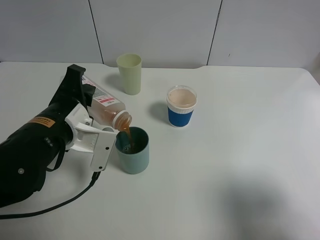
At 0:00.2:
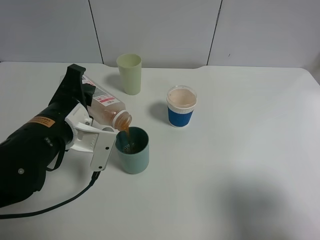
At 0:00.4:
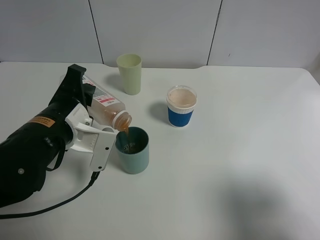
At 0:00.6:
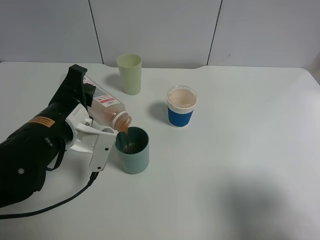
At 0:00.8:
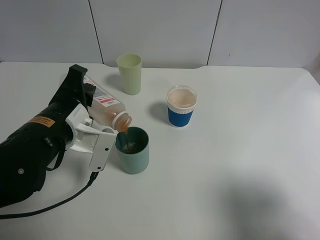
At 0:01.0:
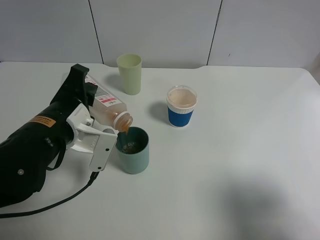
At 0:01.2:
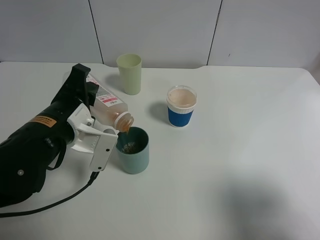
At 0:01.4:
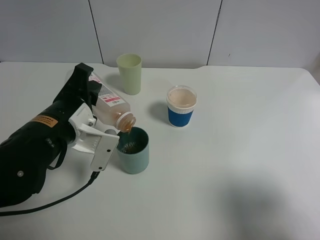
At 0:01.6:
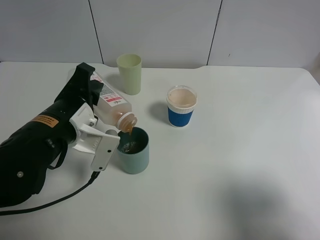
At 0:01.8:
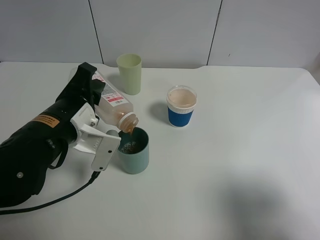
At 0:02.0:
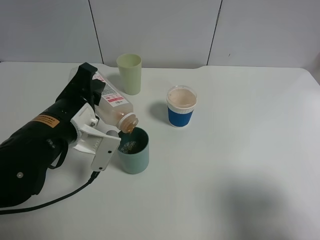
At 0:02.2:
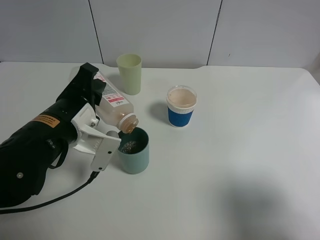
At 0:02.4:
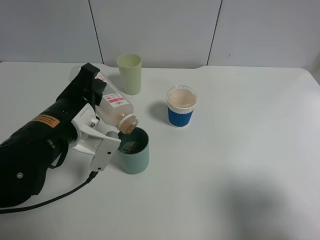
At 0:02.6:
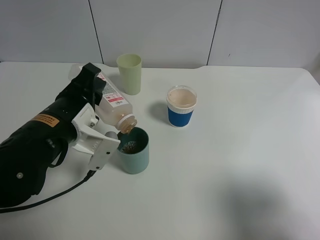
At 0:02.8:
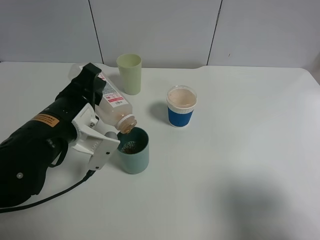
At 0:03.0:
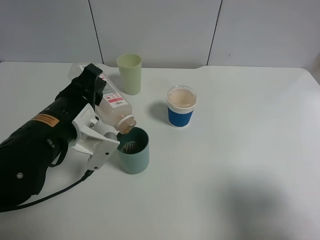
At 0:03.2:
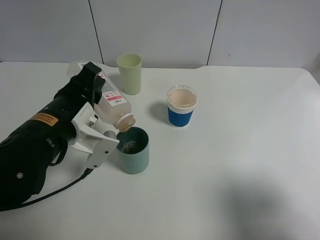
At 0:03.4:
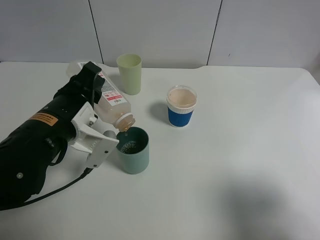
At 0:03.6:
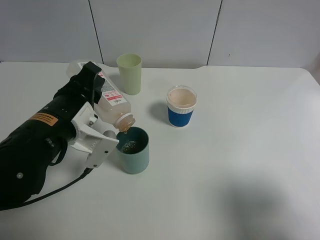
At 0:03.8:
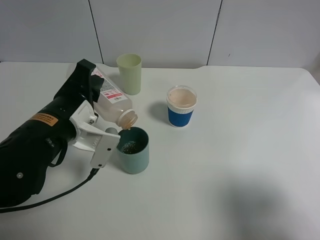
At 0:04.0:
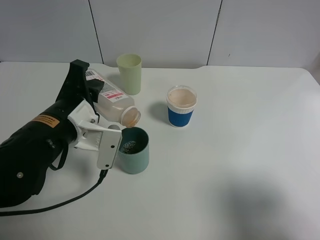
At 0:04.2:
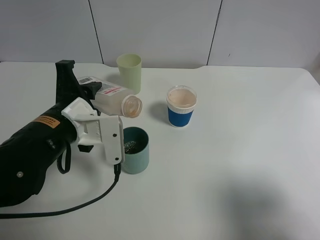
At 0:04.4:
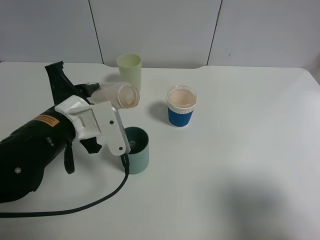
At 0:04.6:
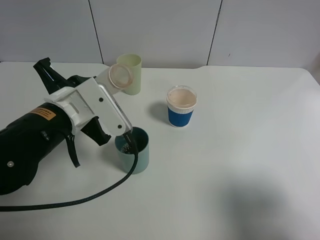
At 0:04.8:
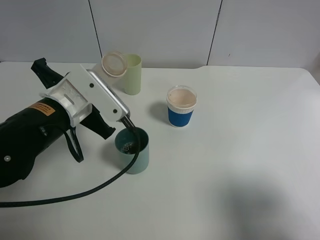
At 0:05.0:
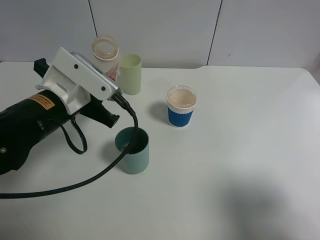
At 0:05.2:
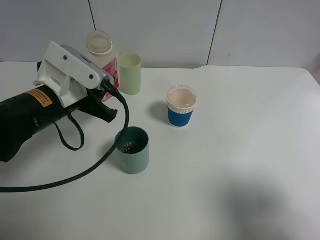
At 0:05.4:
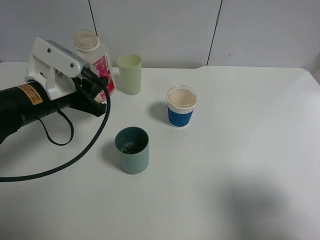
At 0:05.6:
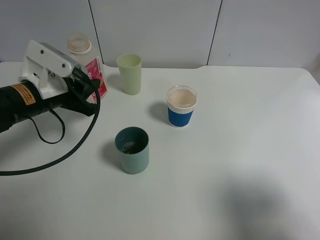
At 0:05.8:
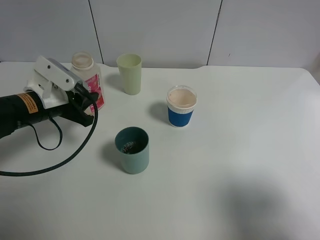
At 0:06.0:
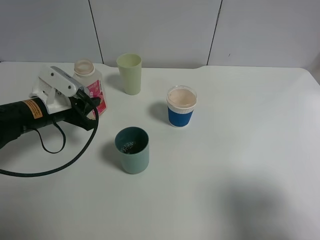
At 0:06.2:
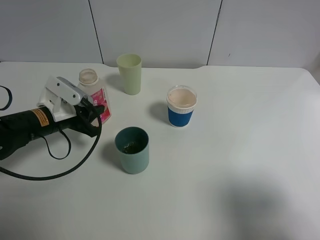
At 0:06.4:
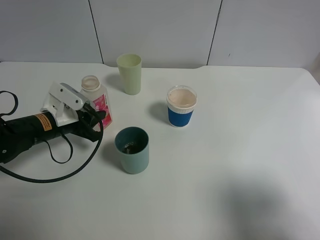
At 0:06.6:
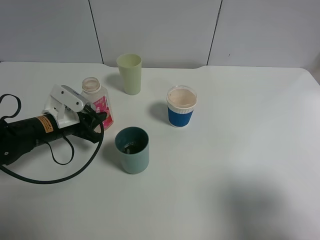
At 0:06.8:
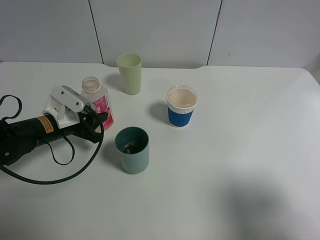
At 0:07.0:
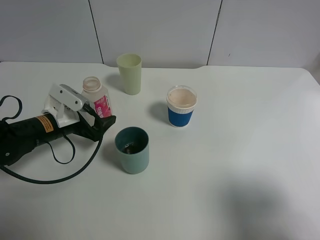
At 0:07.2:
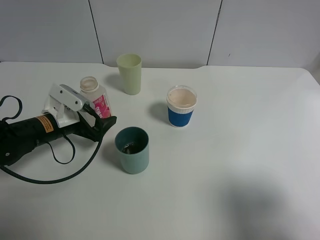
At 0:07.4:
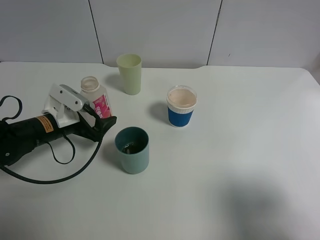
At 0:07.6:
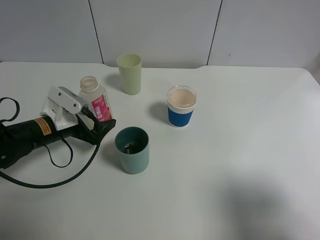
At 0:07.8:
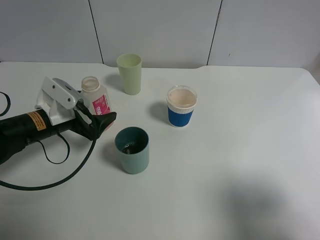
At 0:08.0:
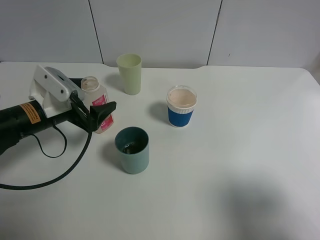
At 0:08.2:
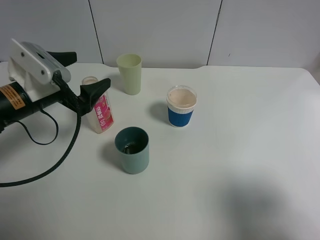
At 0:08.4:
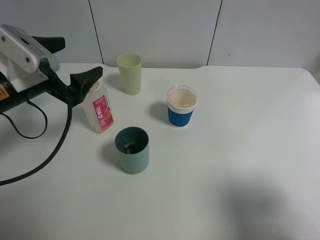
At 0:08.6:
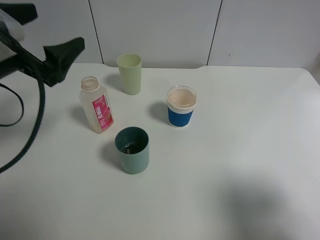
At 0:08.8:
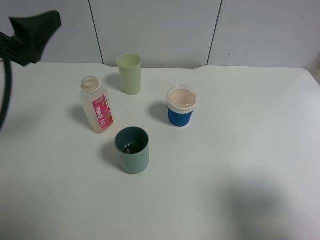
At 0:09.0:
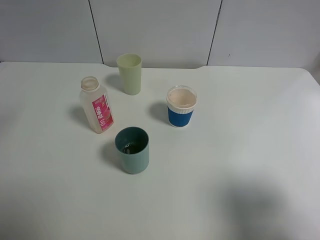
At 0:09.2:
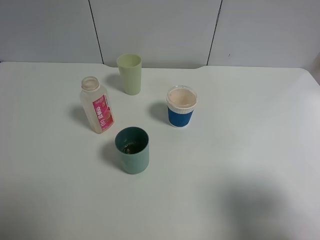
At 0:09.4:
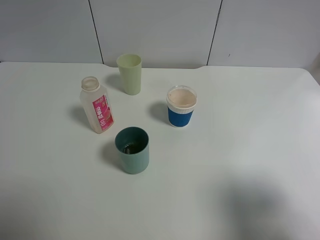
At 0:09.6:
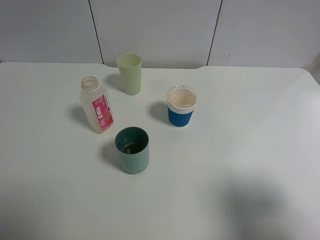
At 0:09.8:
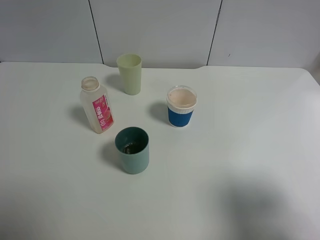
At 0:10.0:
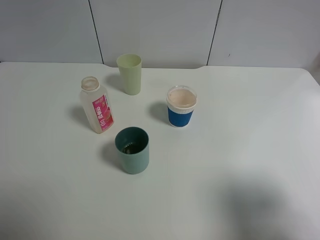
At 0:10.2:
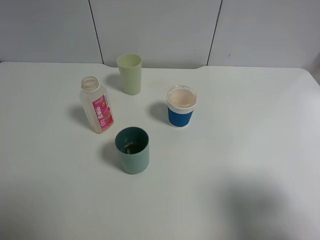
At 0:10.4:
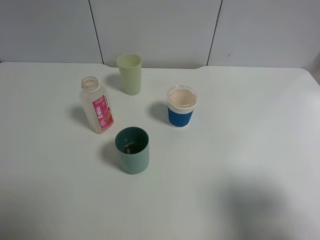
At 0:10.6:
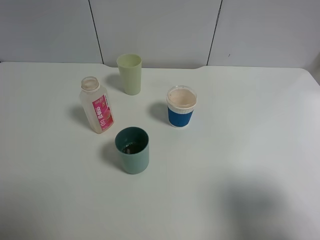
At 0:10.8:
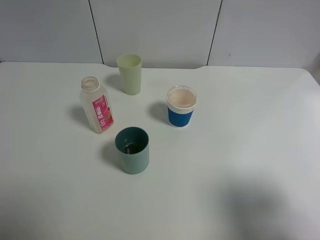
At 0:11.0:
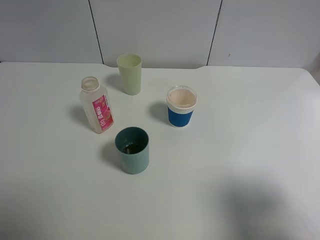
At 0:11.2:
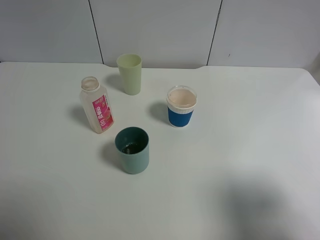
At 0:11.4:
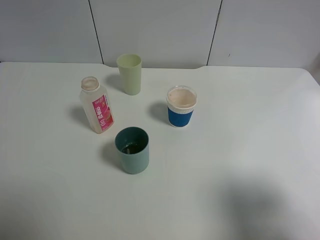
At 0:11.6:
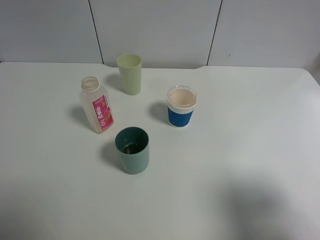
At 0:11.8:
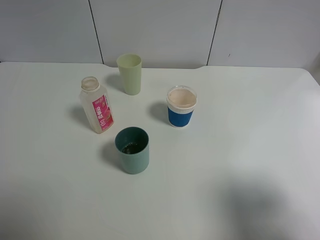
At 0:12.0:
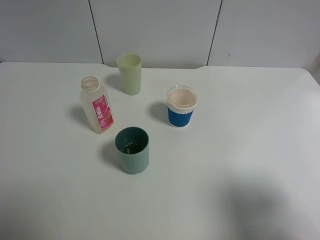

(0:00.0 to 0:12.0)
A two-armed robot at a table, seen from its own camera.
Task of the whole recording: use a gripper to hold the bottle of the drink and pour it into a random cup.
Step, 0:00.0 - 0:04.0: Pour the cranberry juice into the cyan cup with the left gripper.
Step, 0:04.2 - 0:07.0: Place the cranberry juice bottle on the table with the left gripper.
0:00.0 - 0:03.0: There are only small adjustments of the grippers.
0:04.4 - 0:06.0: The left gripper shifts roughly 10 cm forward, to the left and downward.
0:06.0 - 0:07.6: The left gripper opens its fingers.
0:07.6 - 0:09.0: The left gripper goes about 30 cm upward and backward.

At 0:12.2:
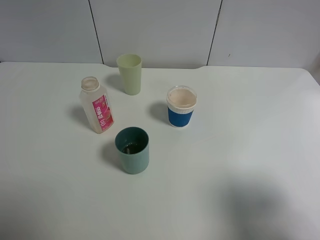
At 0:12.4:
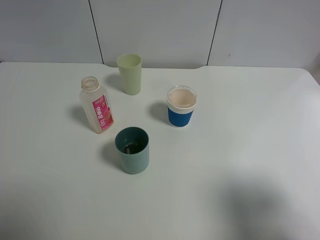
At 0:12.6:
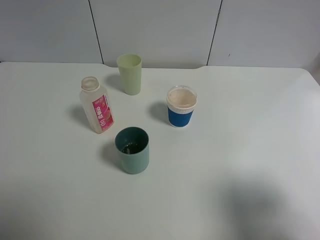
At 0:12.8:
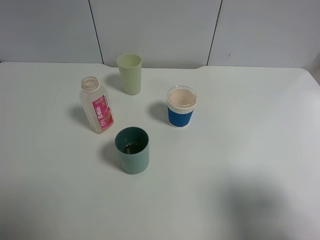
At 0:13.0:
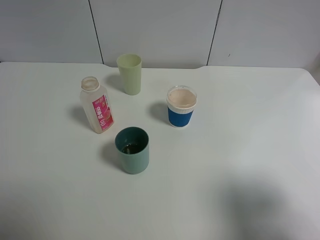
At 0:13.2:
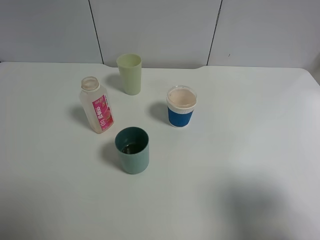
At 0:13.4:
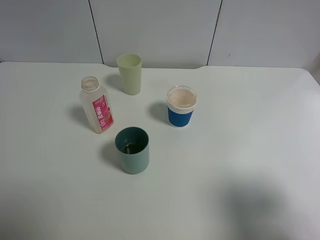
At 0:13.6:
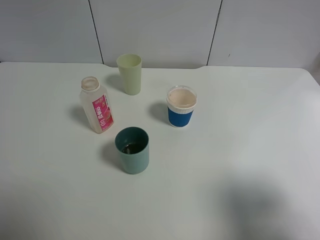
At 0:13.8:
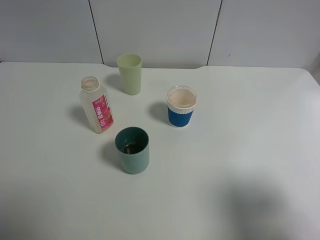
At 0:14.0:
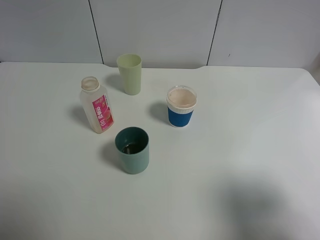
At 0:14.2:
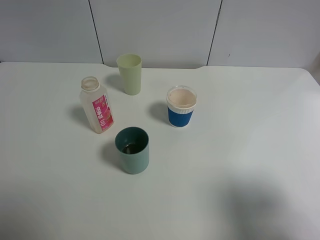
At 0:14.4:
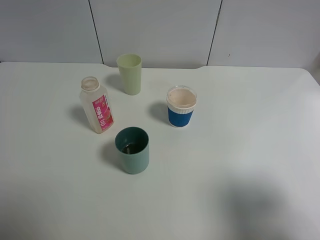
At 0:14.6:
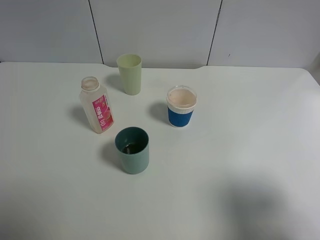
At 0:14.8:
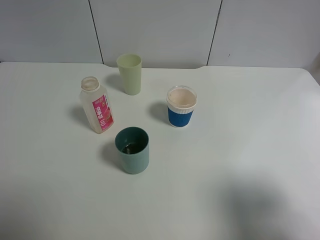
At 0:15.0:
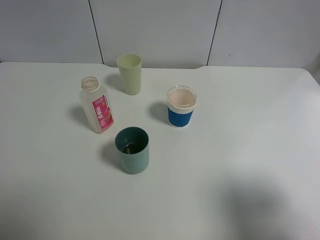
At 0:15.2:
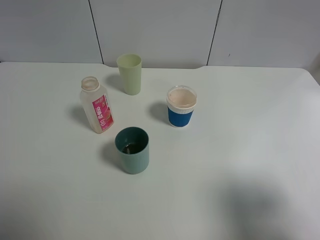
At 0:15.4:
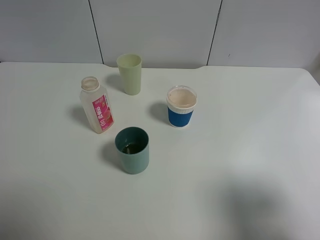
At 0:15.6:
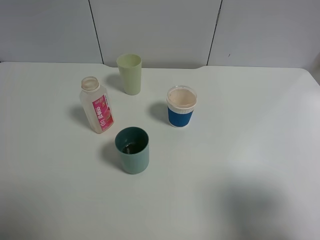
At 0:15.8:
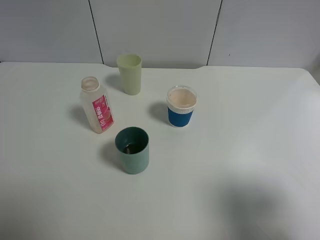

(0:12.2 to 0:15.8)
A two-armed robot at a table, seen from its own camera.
Task of the whole recording: use a gripper to hold the bottle of the drink and pour it into a random cup.
0:12.2 - 0:15.8: The two grippers keep their place.
